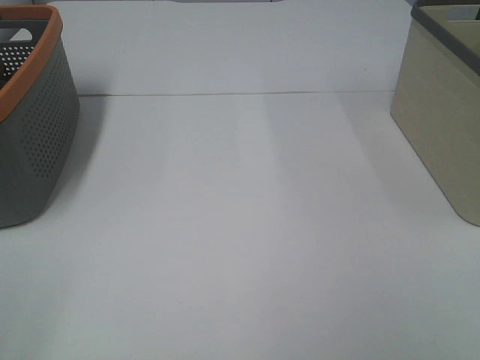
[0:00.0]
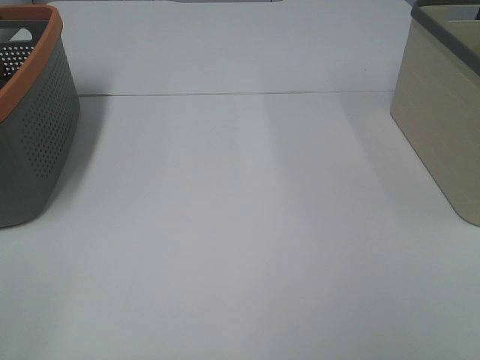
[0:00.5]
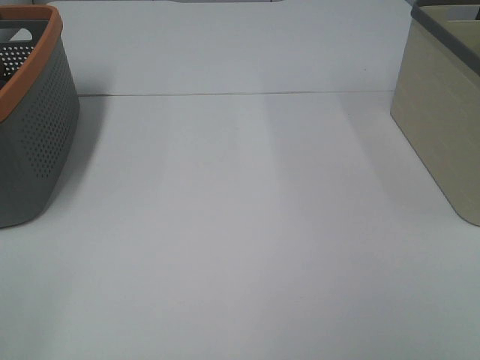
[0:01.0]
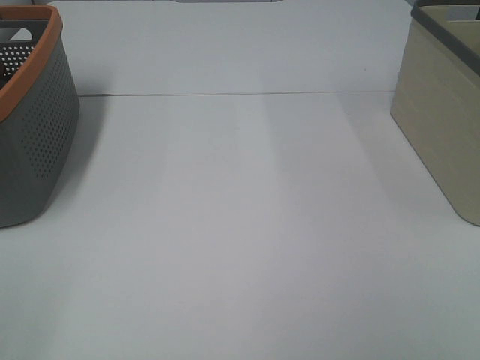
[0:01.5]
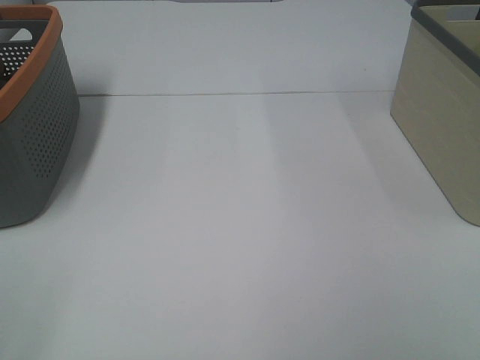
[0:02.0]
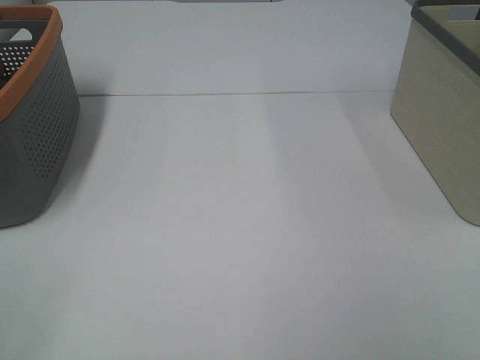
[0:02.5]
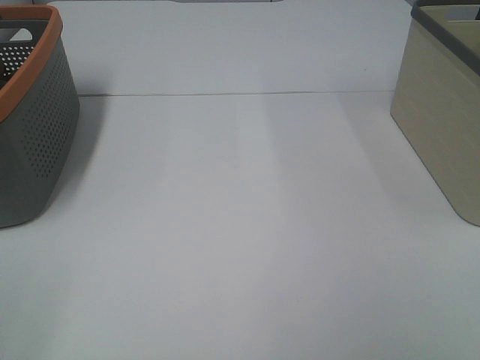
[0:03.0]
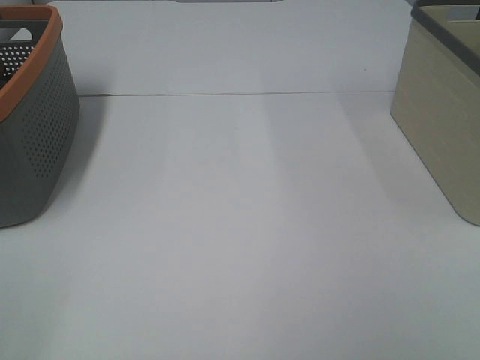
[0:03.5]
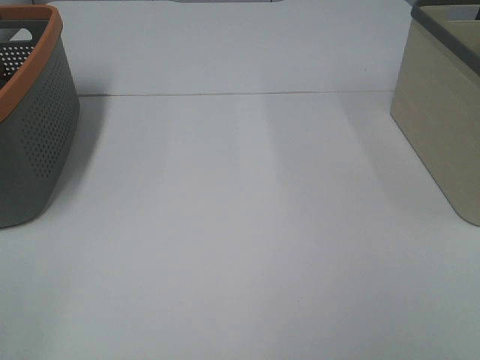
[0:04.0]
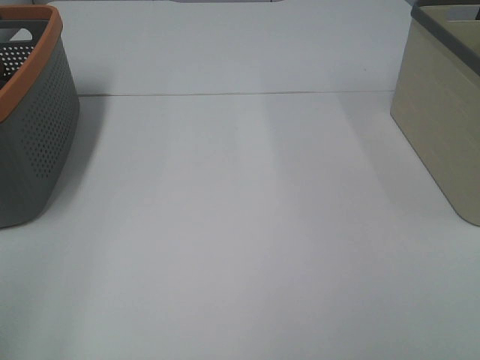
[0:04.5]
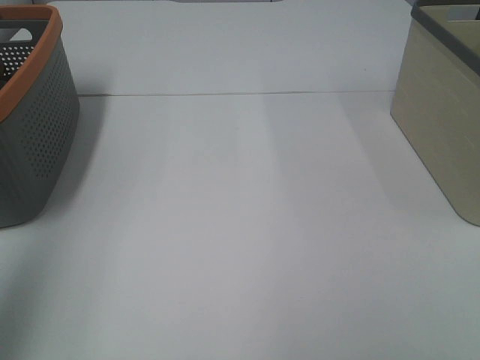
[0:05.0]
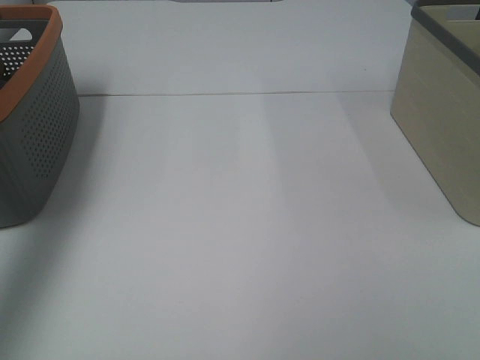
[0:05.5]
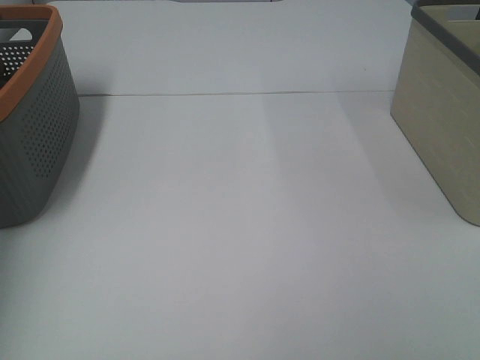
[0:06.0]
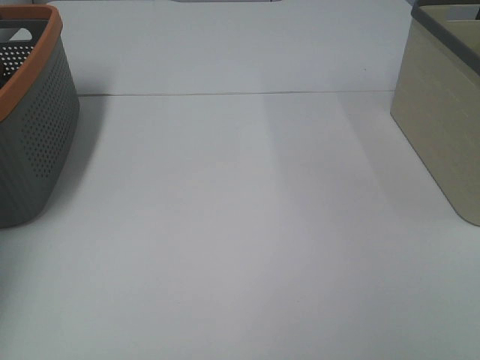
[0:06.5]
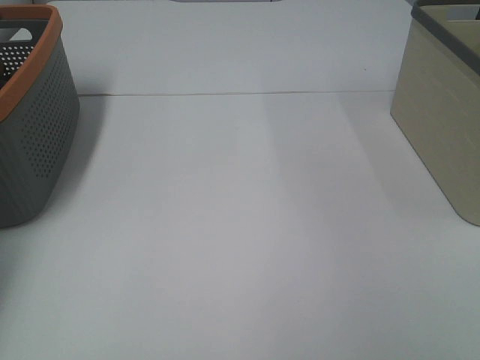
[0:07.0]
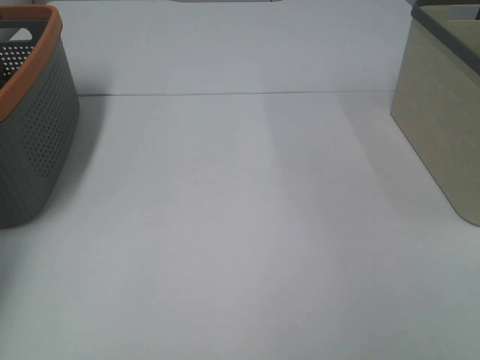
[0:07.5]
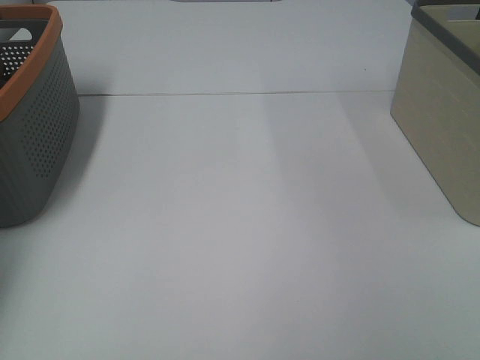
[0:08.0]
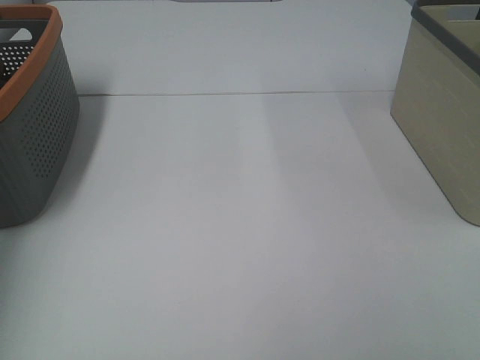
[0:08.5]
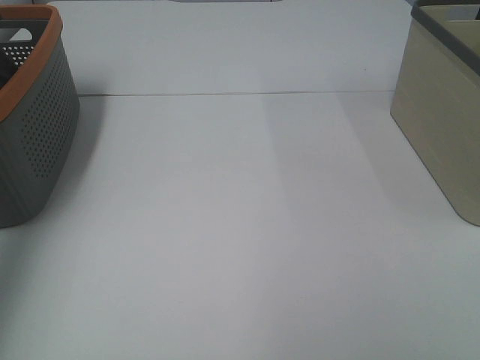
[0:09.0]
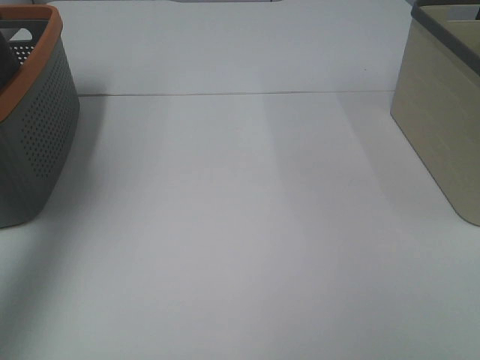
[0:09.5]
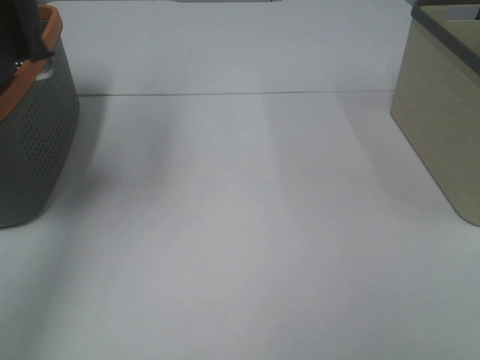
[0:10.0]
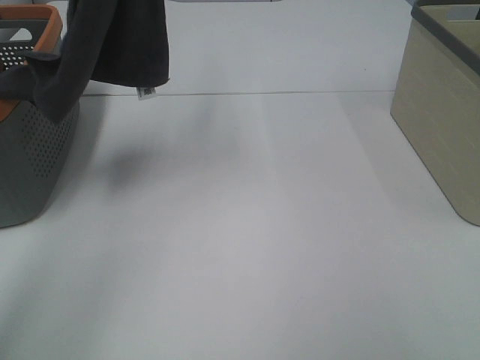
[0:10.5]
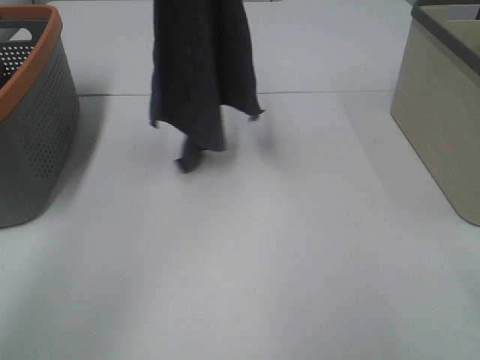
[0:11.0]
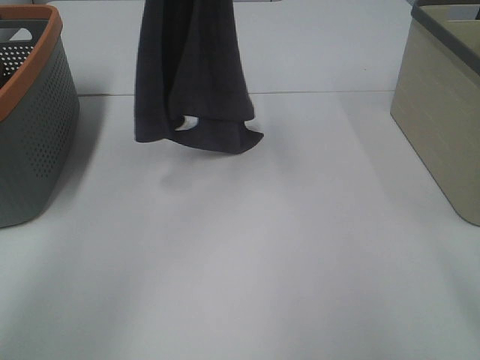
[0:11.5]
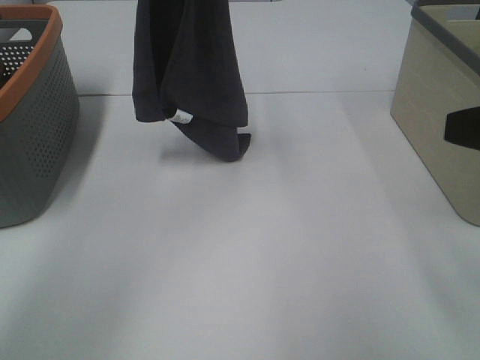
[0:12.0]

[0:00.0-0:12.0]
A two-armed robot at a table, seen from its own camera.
Task of the whole recording: Remove the towel and place it.
0:00.0 to 0:04.0: The two grippers keep their place.
0:04.0 to 0:06.0: The left gripper travels forward by some 40 cm.
0:08.0 to 0:10.0: The left gripper goes roughly 40 cm upward, backward and to the right.
0:10.0 to 0:12.0: The right gripper shifts about 15 cm forward. The left gripper shifts roughly 20 cm to the right, downward and forward.

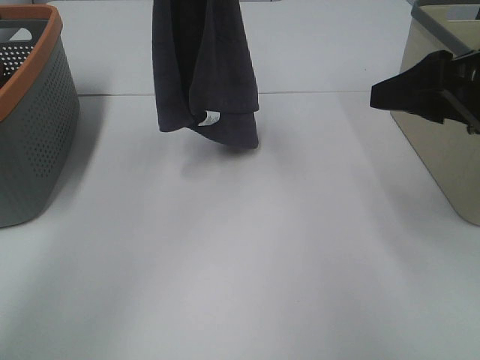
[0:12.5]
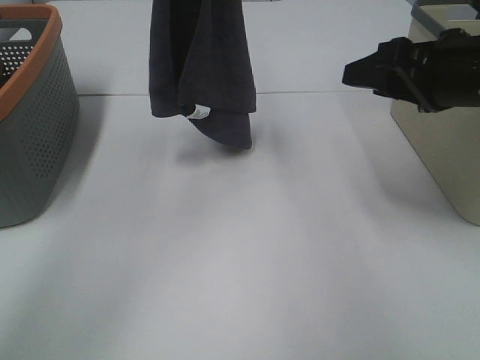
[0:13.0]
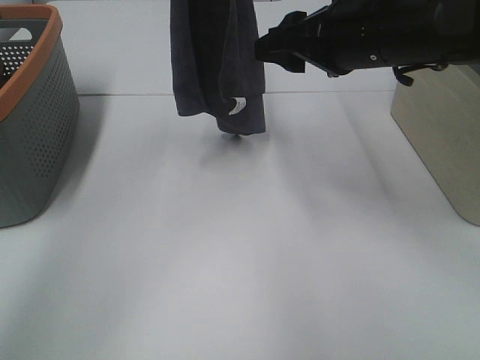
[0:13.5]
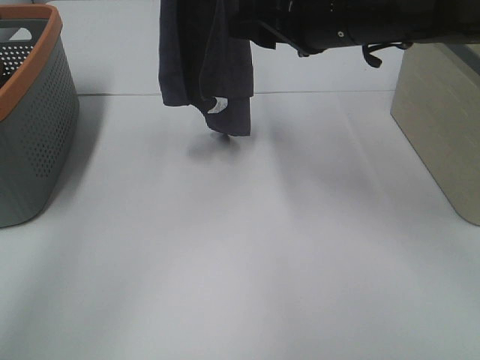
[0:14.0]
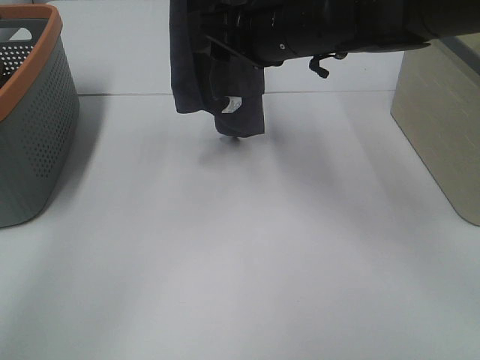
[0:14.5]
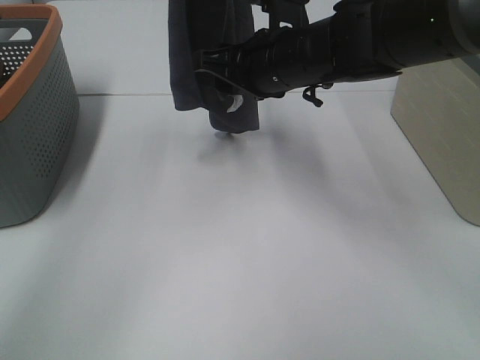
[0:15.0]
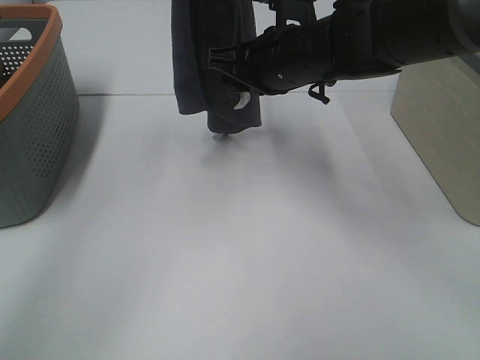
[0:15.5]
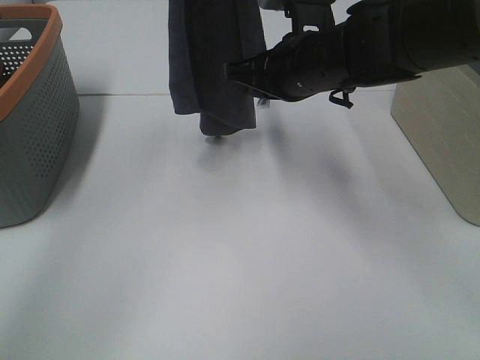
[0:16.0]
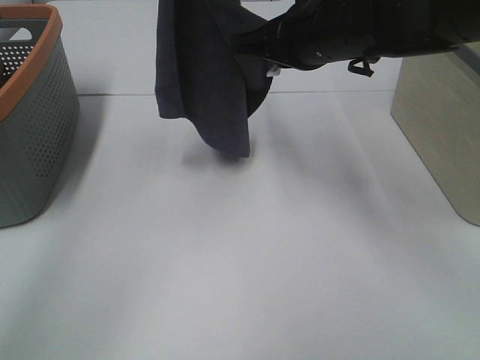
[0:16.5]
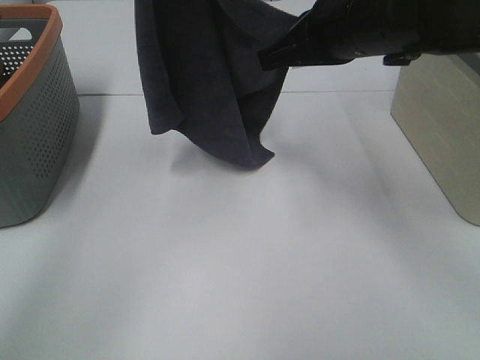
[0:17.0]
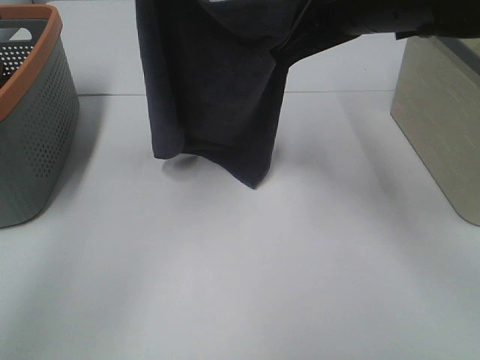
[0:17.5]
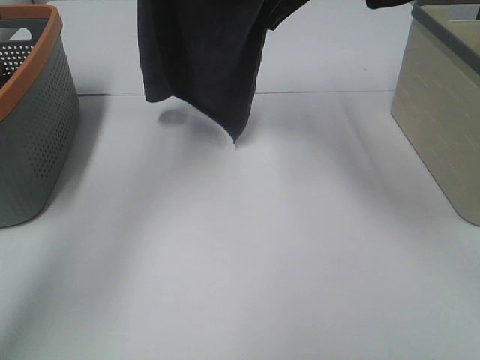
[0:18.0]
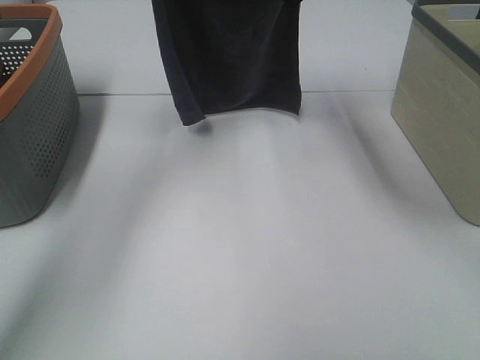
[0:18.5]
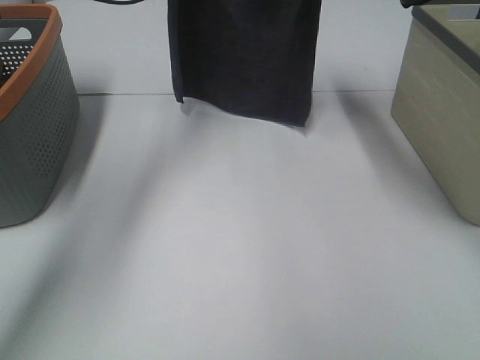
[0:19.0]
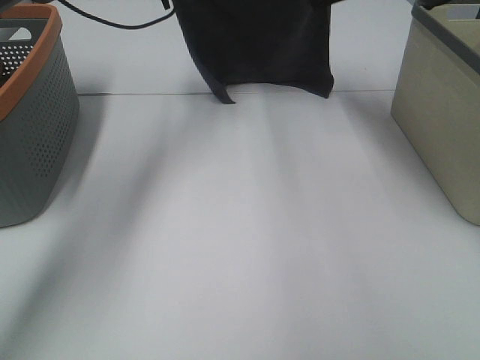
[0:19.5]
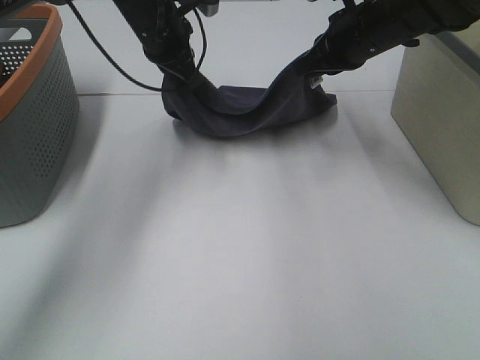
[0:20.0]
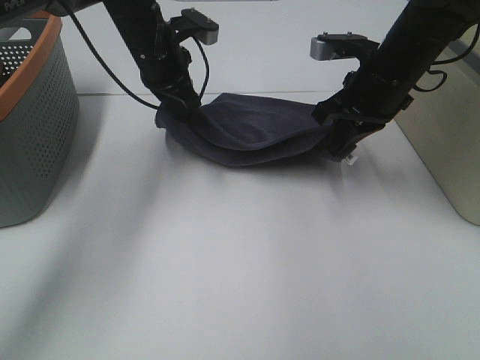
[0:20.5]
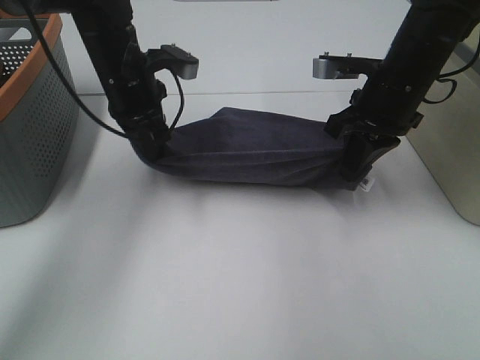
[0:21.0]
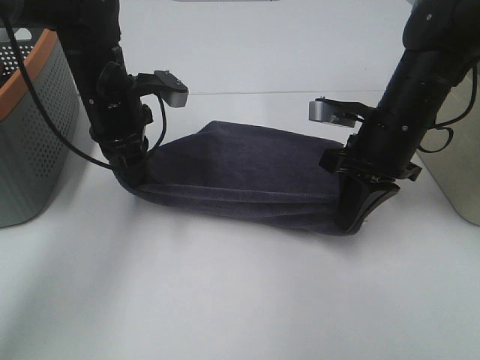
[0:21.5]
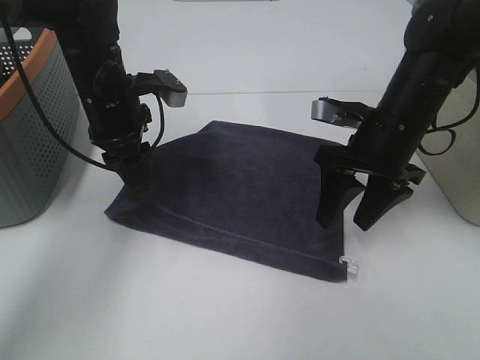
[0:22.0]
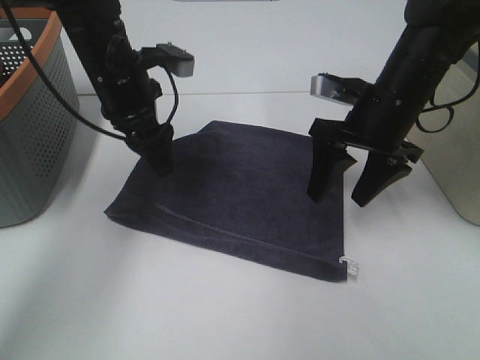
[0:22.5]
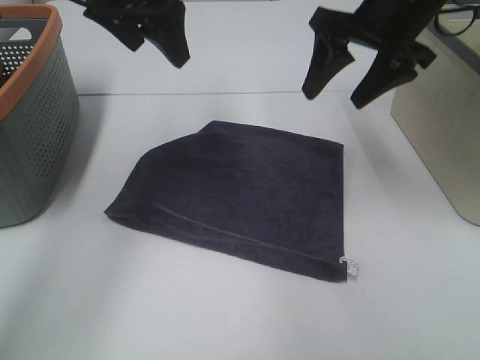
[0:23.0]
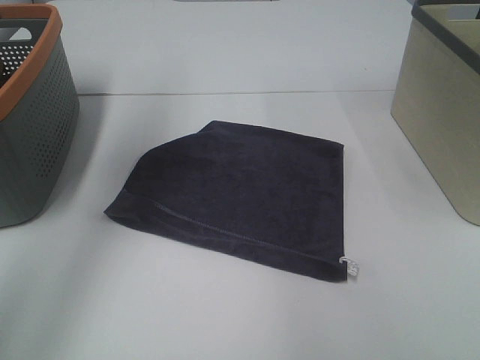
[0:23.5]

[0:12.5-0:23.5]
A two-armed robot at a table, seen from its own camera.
Task of the whole recording: Remove the towel and place it.
Step, 0:12.5 to 0:14.5: Right hand: grab a corner of the grey towel and straighten it.
Step, 0:15.0 to 0:17.5: Left hand: spread the grey towel flat on the table.
Step, 0:15.0 to 0:17.5: Right hand: spread the grey towel flat on the table.
0:12.5 to 0:14.5: The right gripper heads to the left and forward, covering about 20 cm.
0:14.5 to 0:16.0: The right gripper closes up.
0:16.0 to 0:18.0: The right gripper goes some 10 cm upward and forward; the left gripper is displaced forward and downward by about 10 cm.
0:18.0 to 0:20.0: The left gripper is displaced downward by some 15 cm. The right gripper moves downward and to the right, about 10 cm, and travels forward and back again, approximately 10 cm each way.
0:20.0 to 0:21.5: The right gripper heads backward and downward, covering some 10 cm. Meanwhile the left gripper travels backward by some 10 cm.
0:21.5 to 0:23.5: Both grippers move upward, about 25 cm. The left gripper opens its fingers. Meanwhile the right gripper opens.

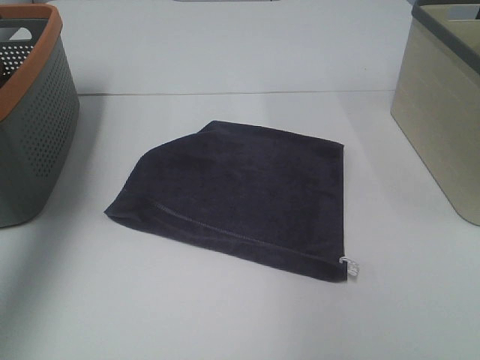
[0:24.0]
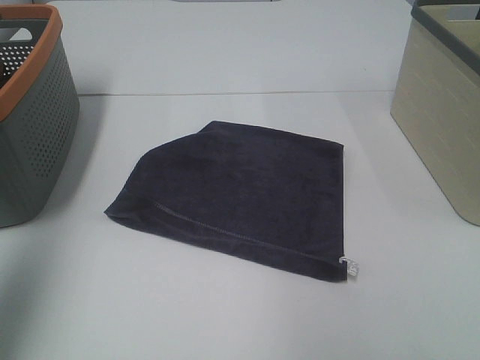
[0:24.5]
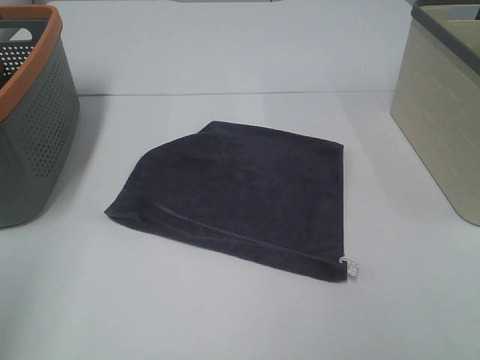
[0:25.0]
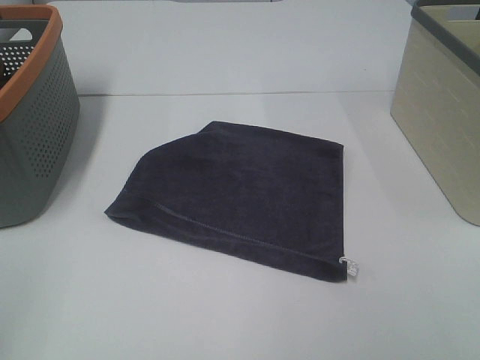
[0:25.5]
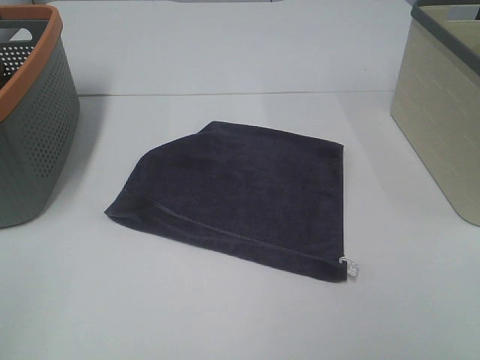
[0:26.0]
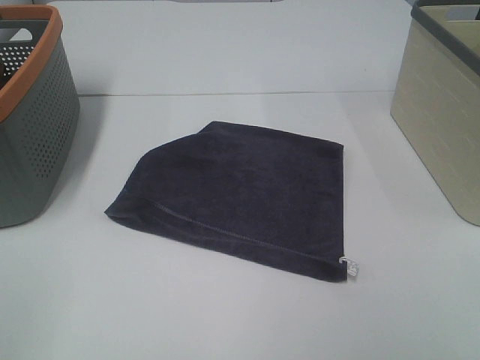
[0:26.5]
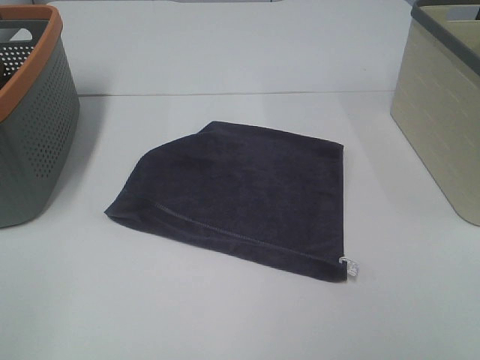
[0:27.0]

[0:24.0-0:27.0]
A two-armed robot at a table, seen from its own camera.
Task of the whole recording: Remove the towel and place it.
0:24.0 to 0:25.5: The left gripper heads backward, covering approximately 30 cm.
